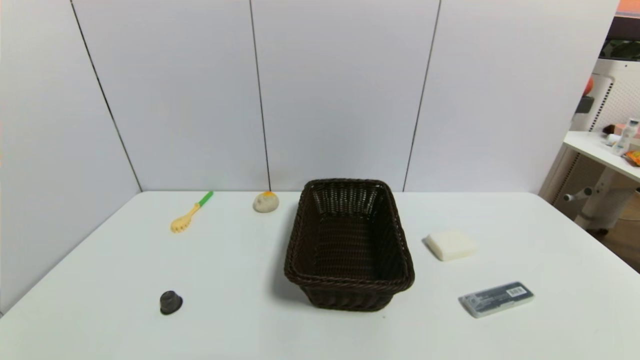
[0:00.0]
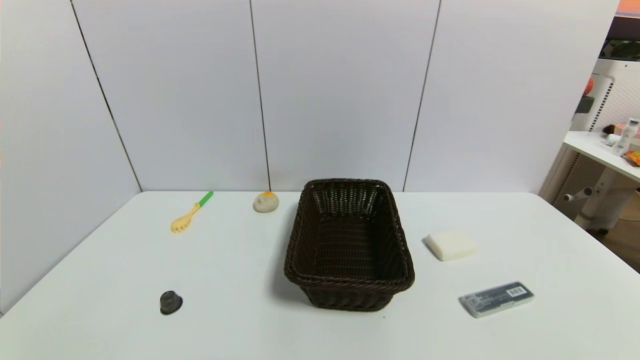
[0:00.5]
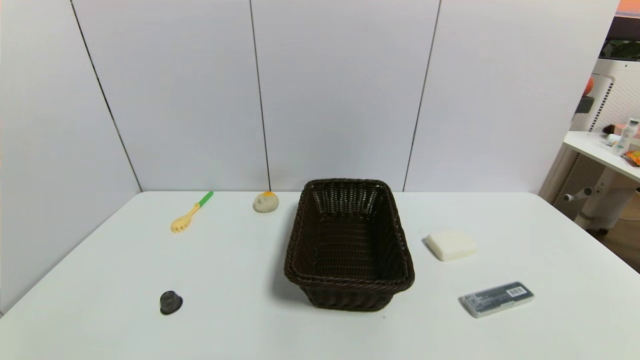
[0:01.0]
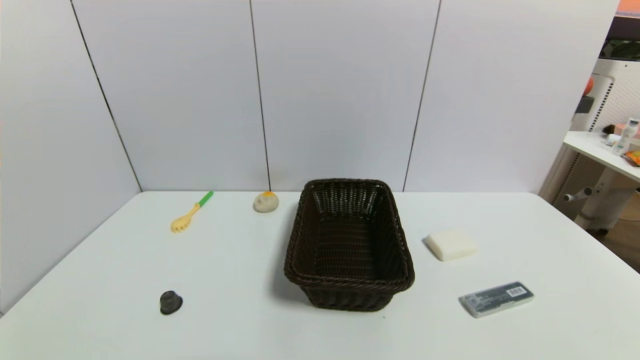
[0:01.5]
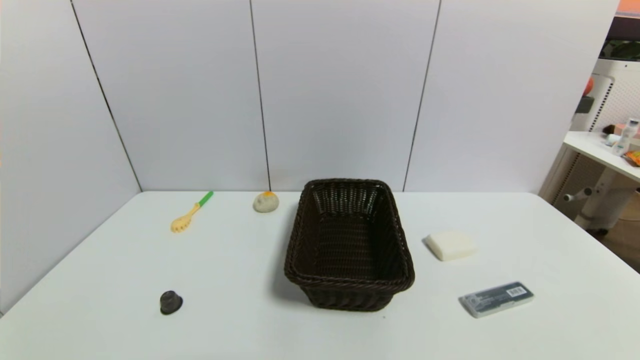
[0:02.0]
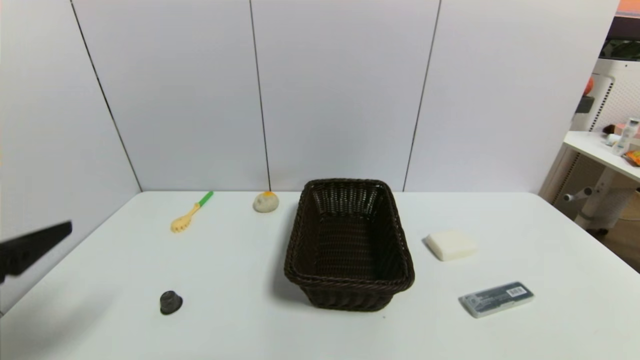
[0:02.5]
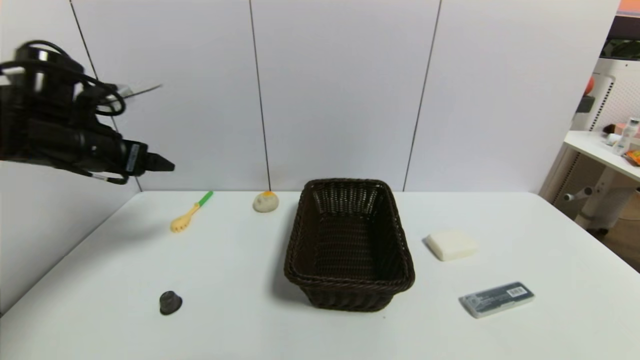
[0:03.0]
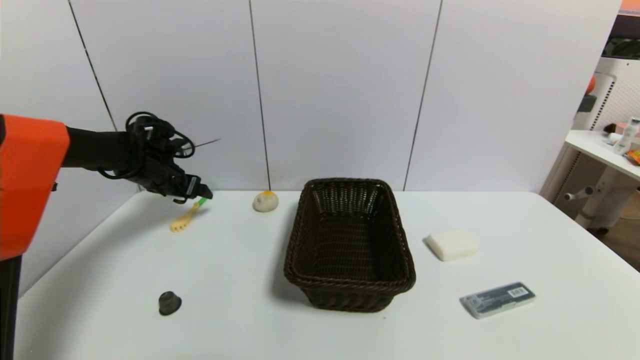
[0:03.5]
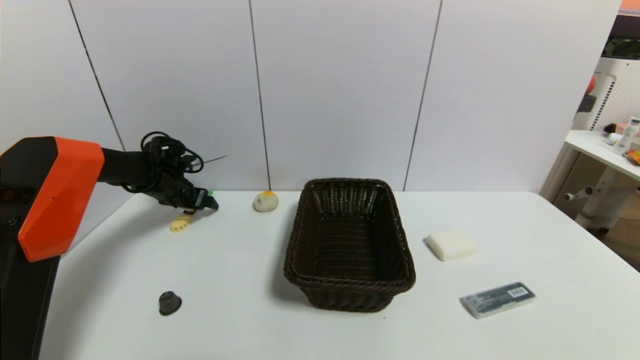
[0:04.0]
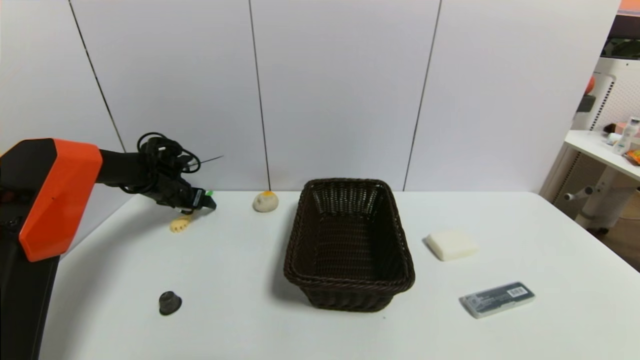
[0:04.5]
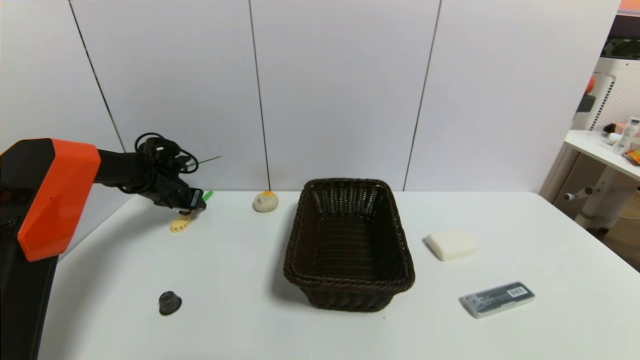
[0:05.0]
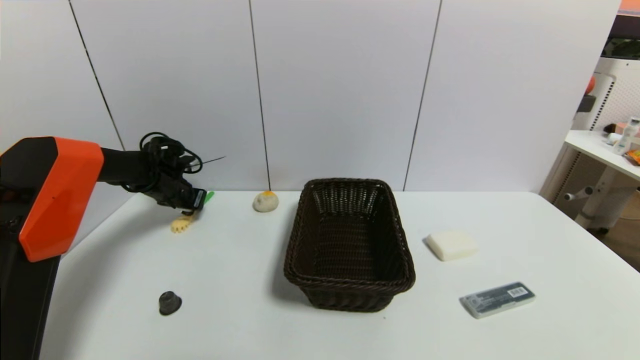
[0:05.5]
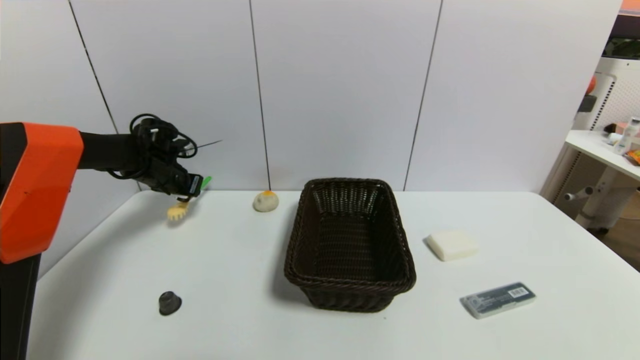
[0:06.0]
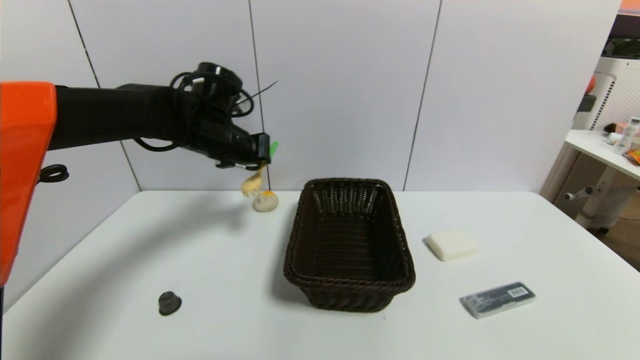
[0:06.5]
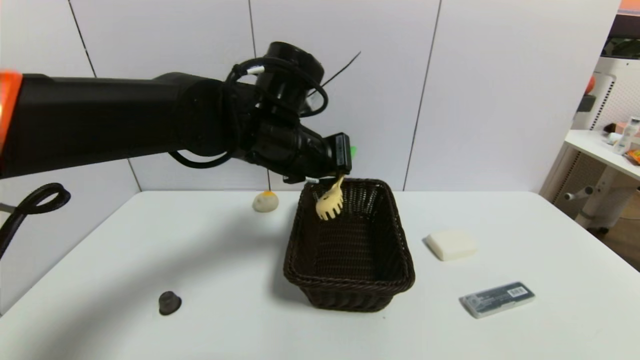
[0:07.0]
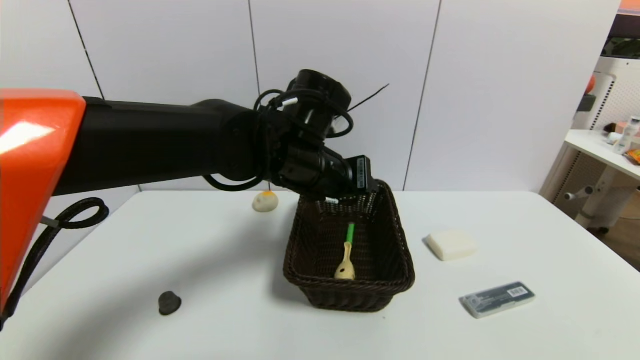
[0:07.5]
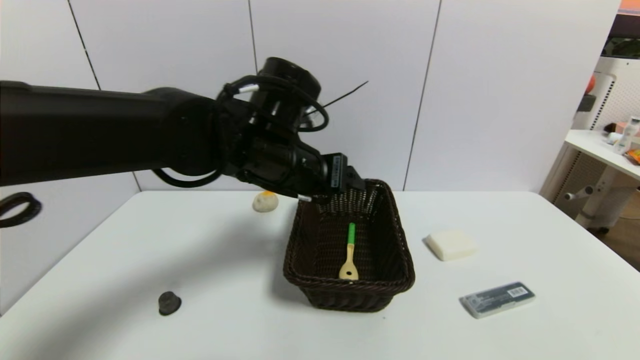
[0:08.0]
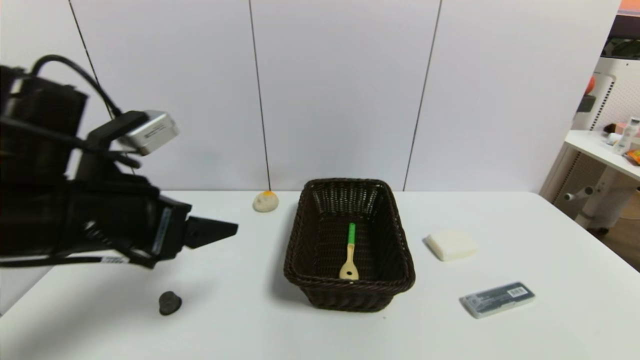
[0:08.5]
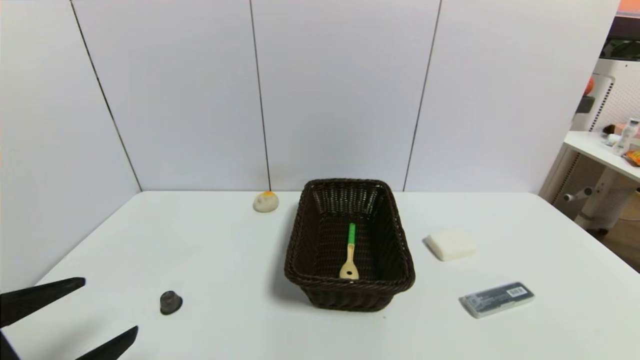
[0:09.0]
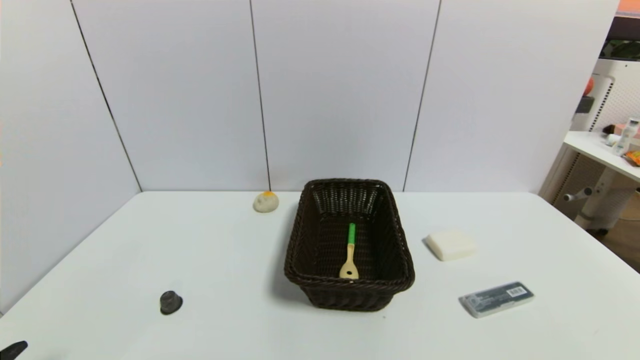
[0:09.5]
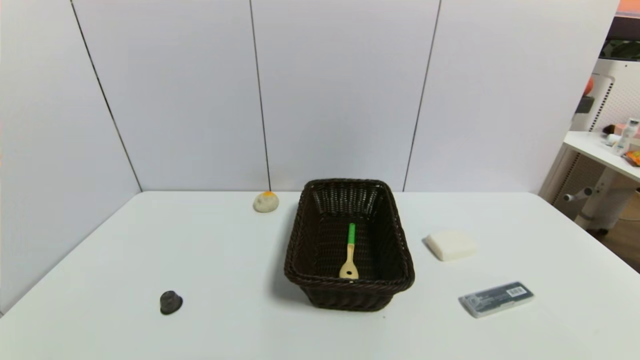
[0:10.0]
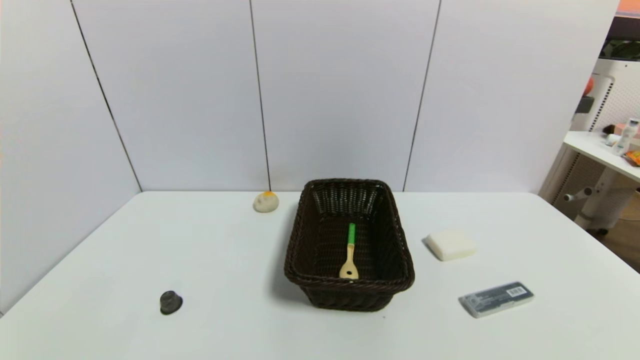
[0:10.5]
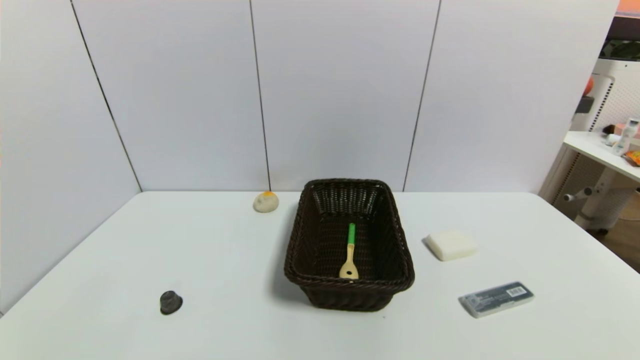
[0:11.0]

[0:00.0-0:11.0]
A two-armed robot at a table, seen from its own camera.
Task of the whole recording: use a gripper to pick the target object and place on the brown basket.
Step, 0:00.0 to 0:05.0: Grasp the back scratcher with the left gripper.
Step, 0:05.5 to 0:08.0: Place the back scratcher into the basket with the left gripper.
0:00.0 to 0:02.0: Both grippers stay put.
0:02.0 to 0:03.5: The left gripper is displaced forward by roughly 50 cm.
0:03.5 to 0:05.5: The left gripper moves approximately 5 cm, and closes up.
0:05.5 to 0:07.5: The left gripper moves to the right, backward and upward, roughly 40 cm, and opens its fingers.
0:07.5 to 0:09.0: The left gripper moves to the left and backward, roughly 35 cm, and opens.
0:09.0 to 0:11.0: The left gripper travels downward and backward by about 15 cm.

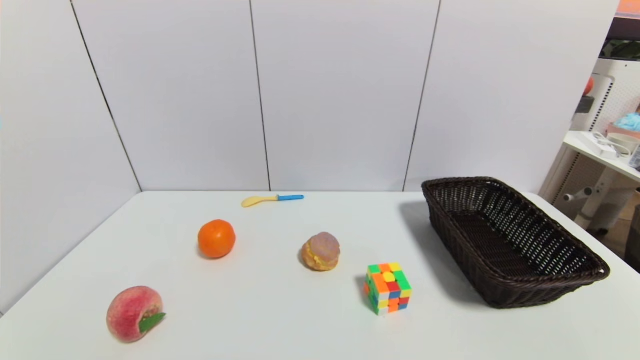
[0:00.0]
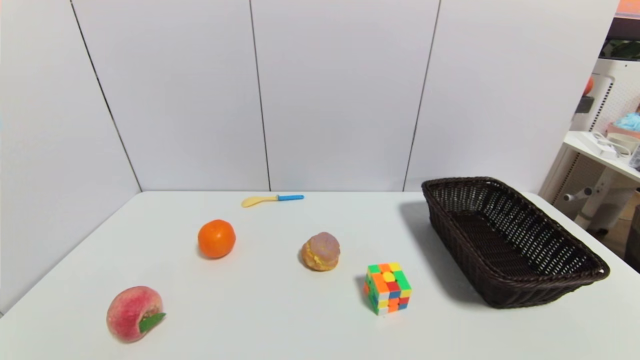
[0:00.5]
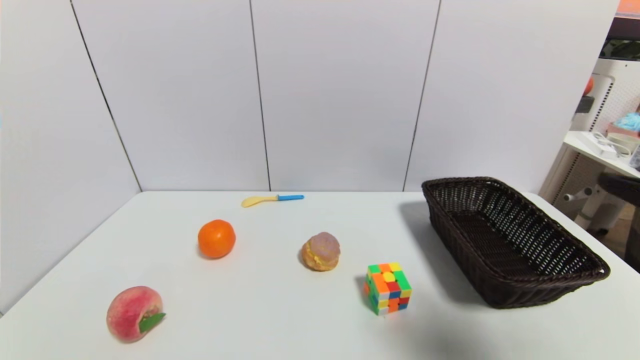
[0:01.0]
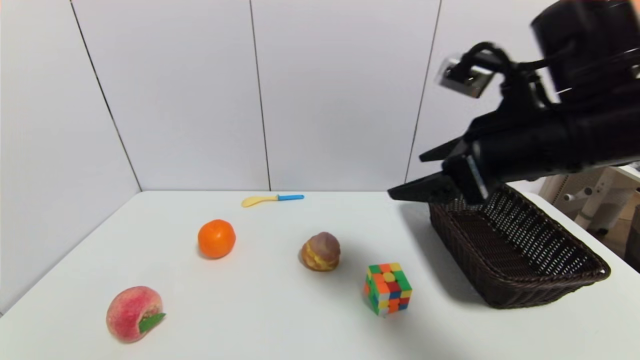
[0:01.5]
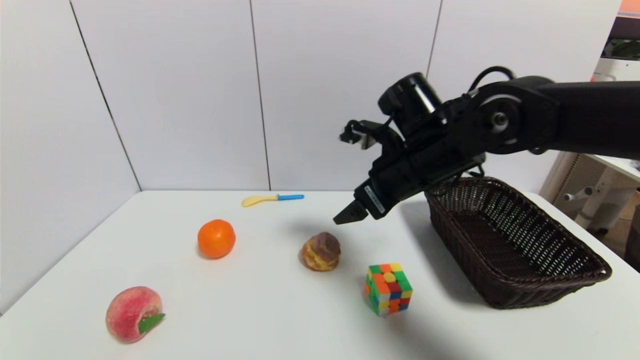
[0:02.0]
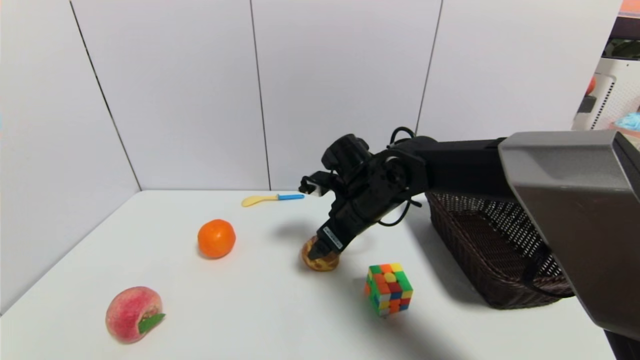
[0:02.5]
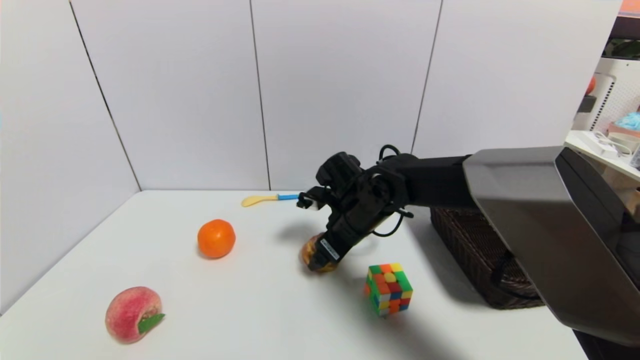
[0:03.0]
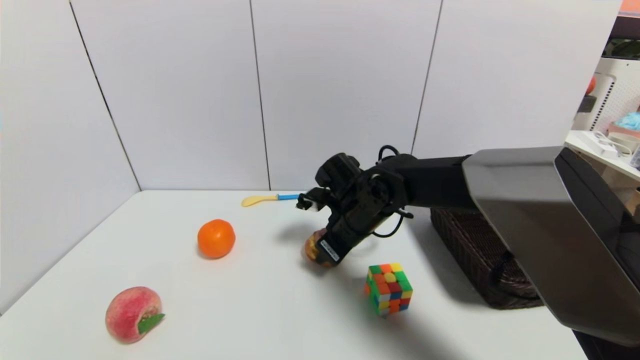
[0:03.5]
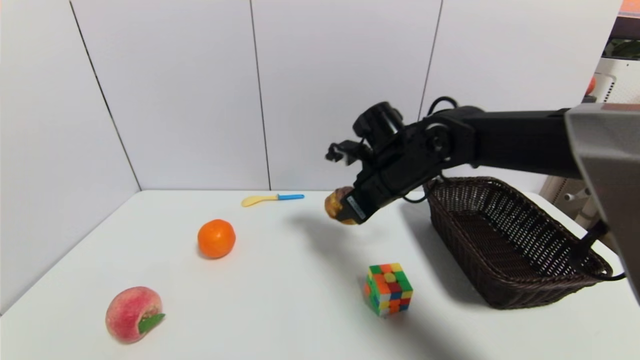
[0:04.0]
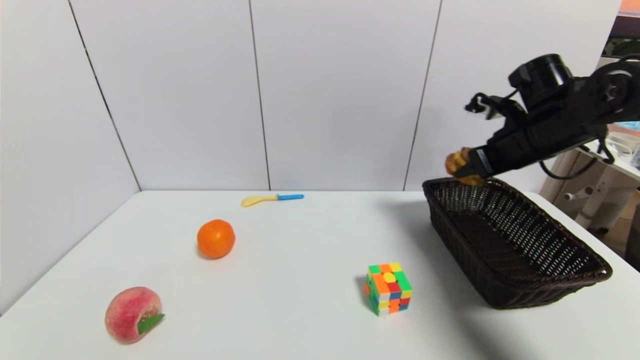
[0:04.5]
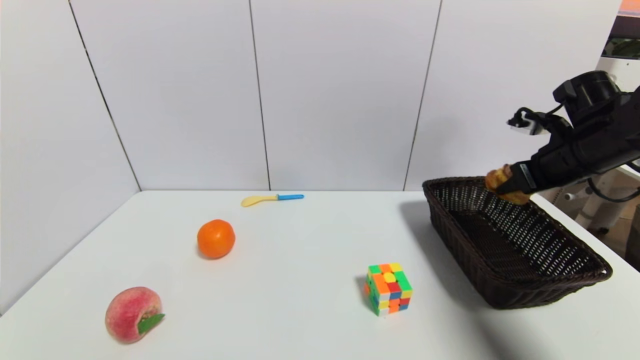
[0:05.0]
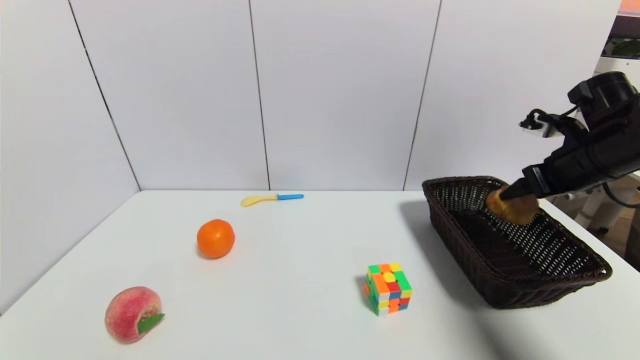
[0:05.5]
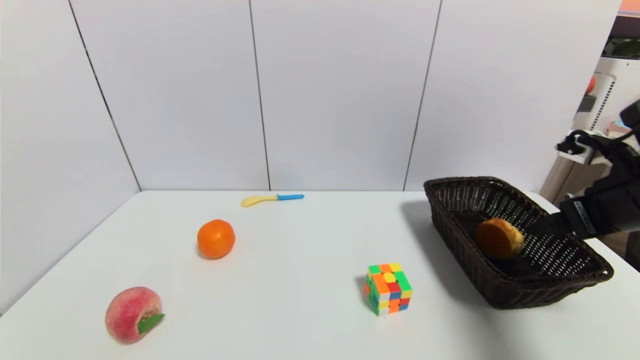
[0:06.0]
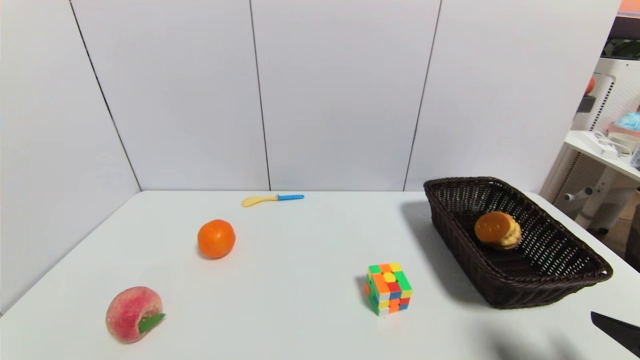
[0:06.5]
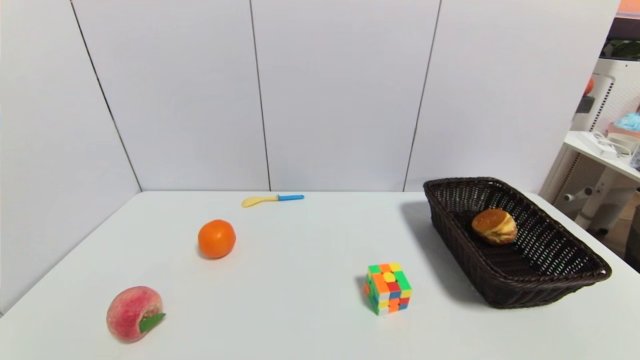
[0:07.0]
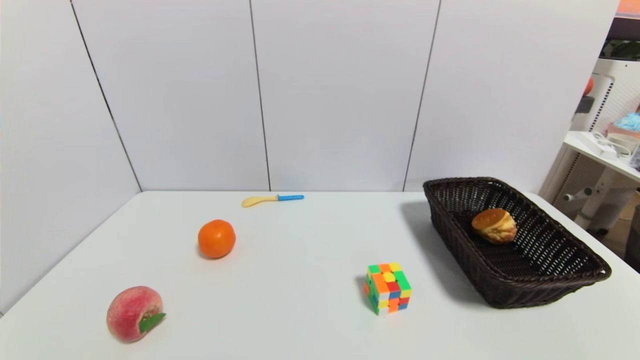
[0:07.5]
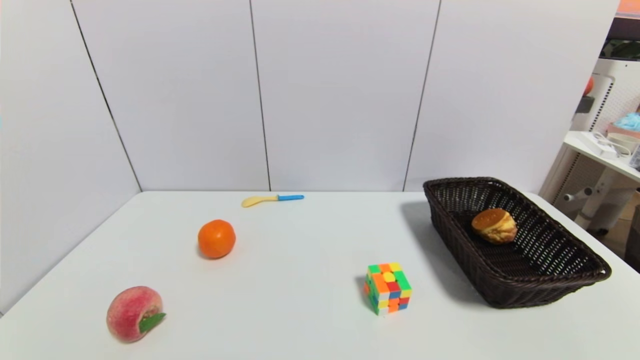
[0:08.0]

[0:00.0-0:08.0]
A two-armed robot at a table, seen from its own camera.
Task of the whole recording: use a gripper to pick the target object and place on the brown basket.
Step, 0:00.0 to 0:03.0: Grasp the round bread with the right gripper.
Step, 0:03.5 to 0:06.0: Place the round bread into the basket with the right gripper.
0:00.0 to 0:02.0: The right gripper is displaced forward, to the left and upward by some 40 cm.
0:02.0 to 0:04.0: The right gripper moves about 10 cm downward and comes back, and closes its fingers.
0:04.0 to 0:06.0: The right gripper heads to the right and backward, covering some 25 cm, and opens up.
0:06.0 to 0:08.0: The right gripper heads backward and downward, covering about 30 cm.
